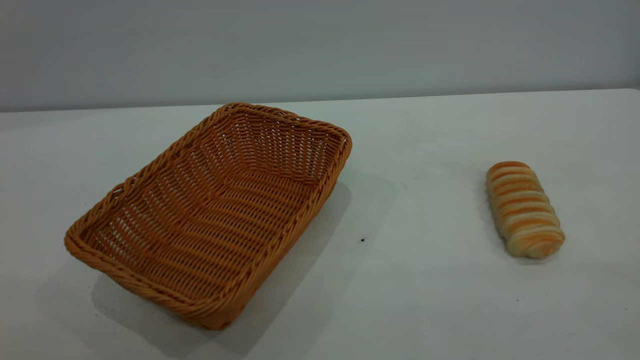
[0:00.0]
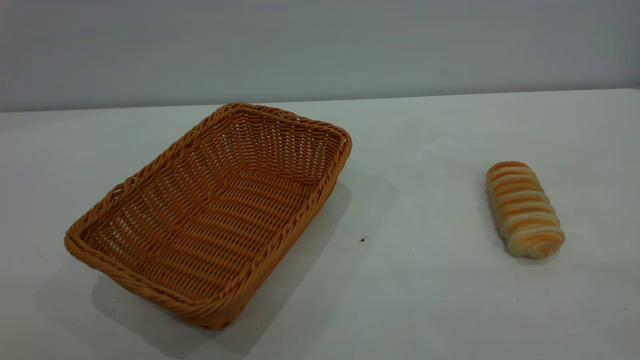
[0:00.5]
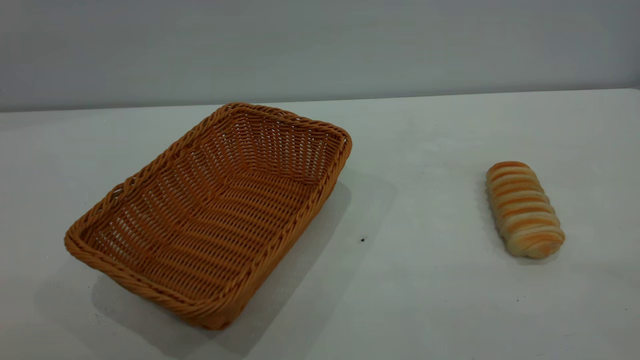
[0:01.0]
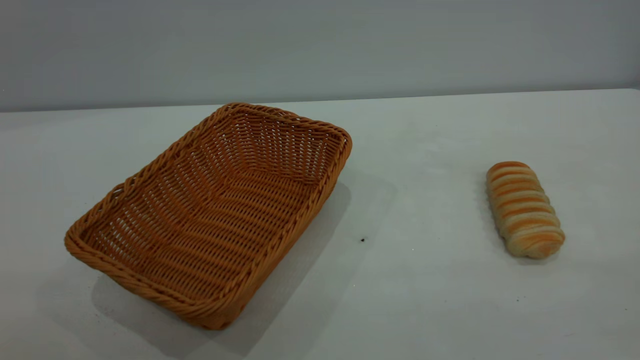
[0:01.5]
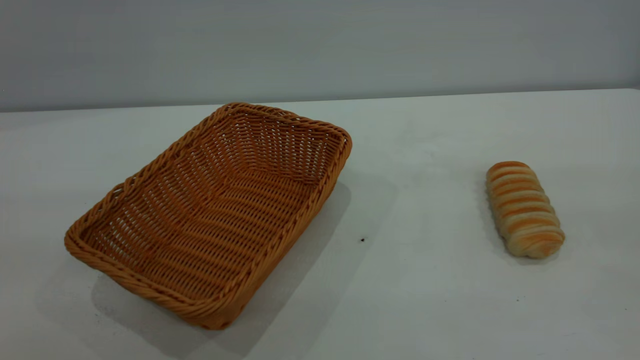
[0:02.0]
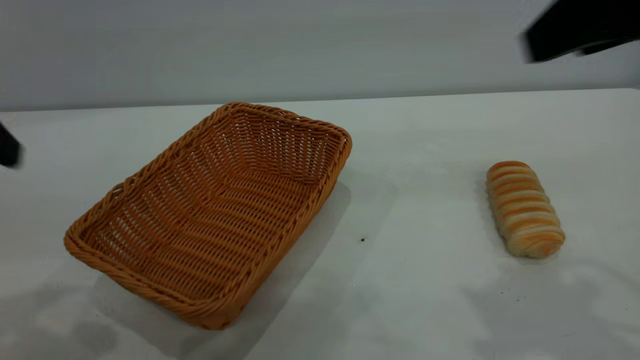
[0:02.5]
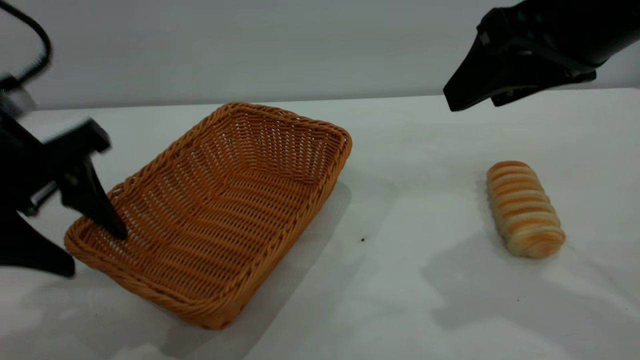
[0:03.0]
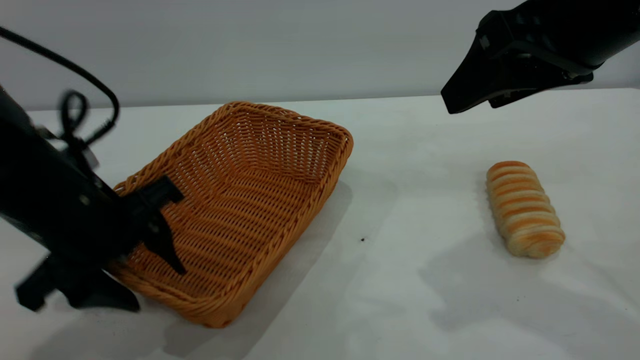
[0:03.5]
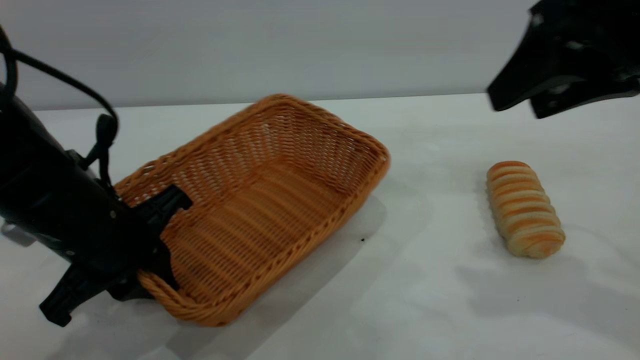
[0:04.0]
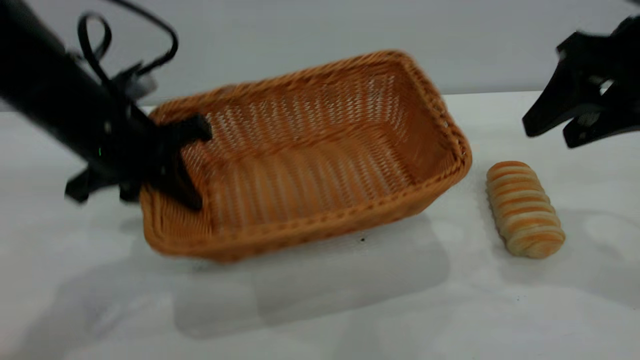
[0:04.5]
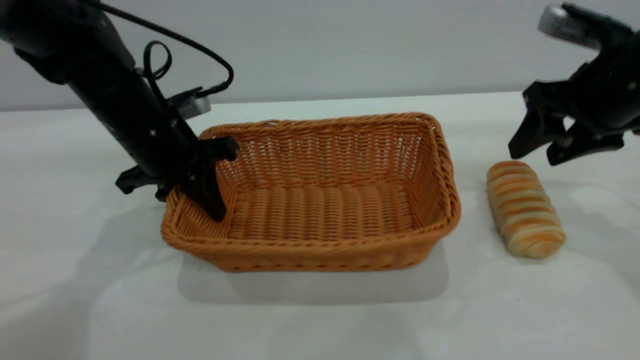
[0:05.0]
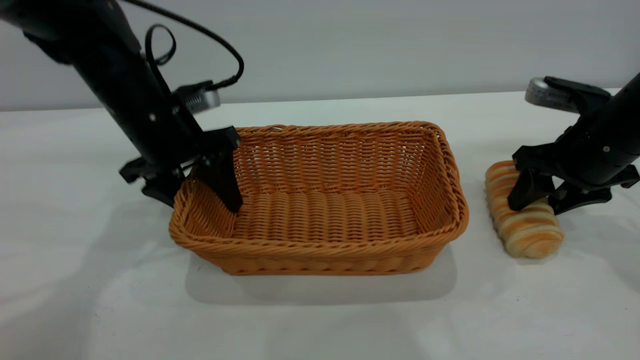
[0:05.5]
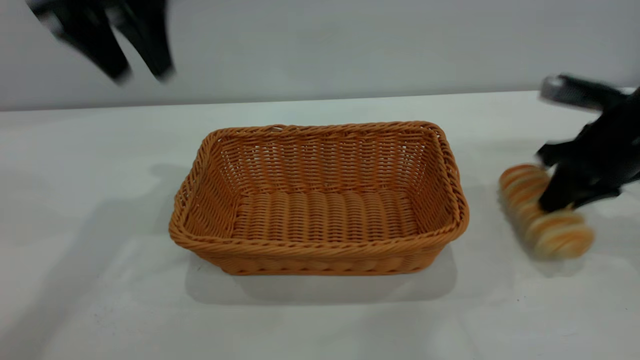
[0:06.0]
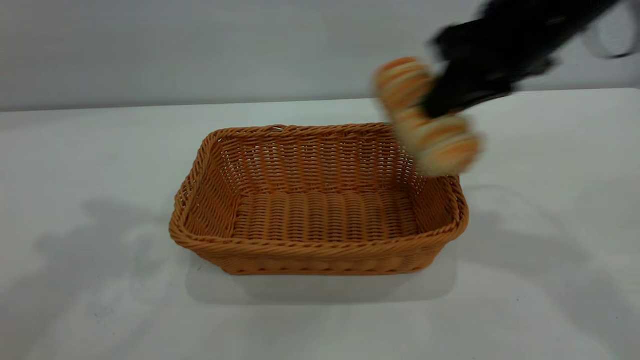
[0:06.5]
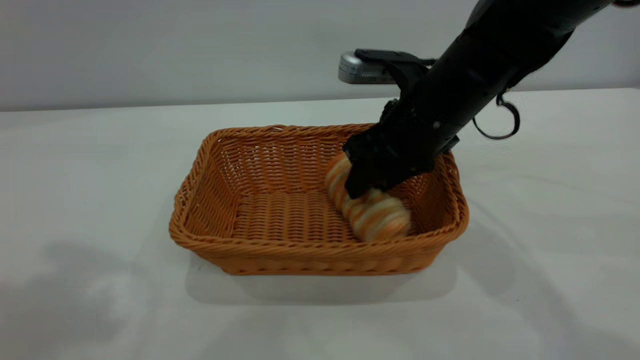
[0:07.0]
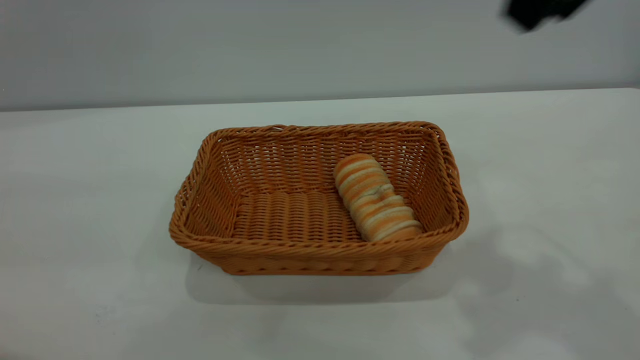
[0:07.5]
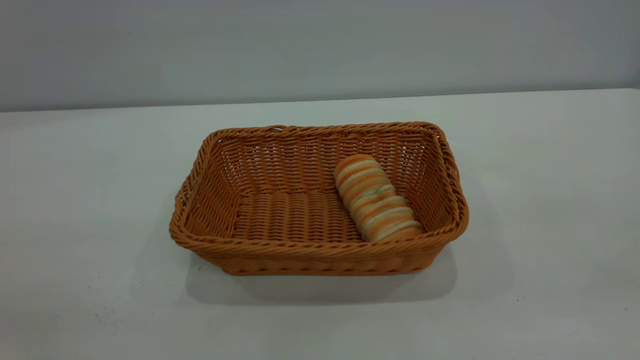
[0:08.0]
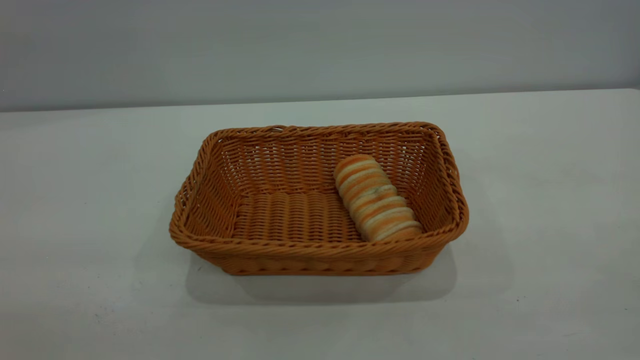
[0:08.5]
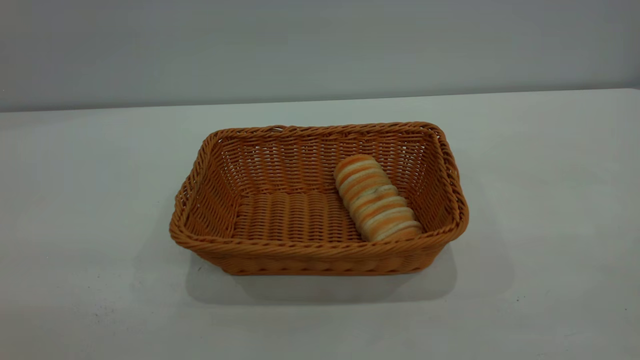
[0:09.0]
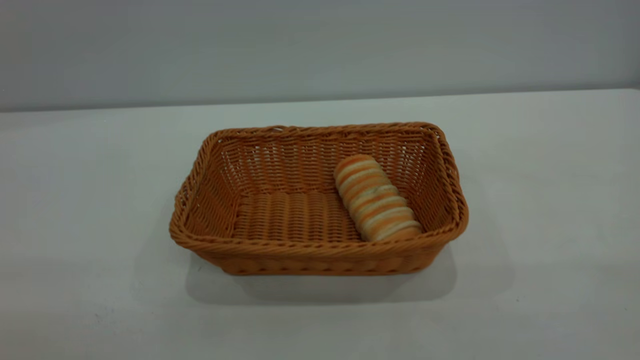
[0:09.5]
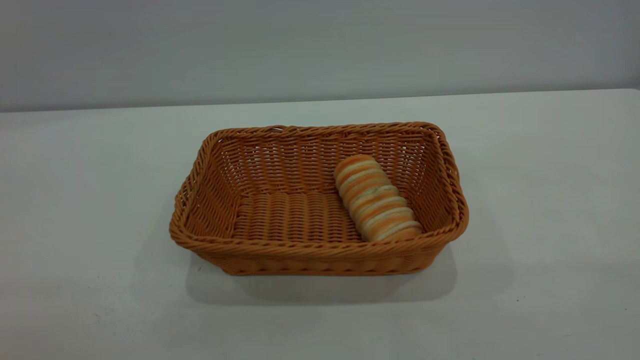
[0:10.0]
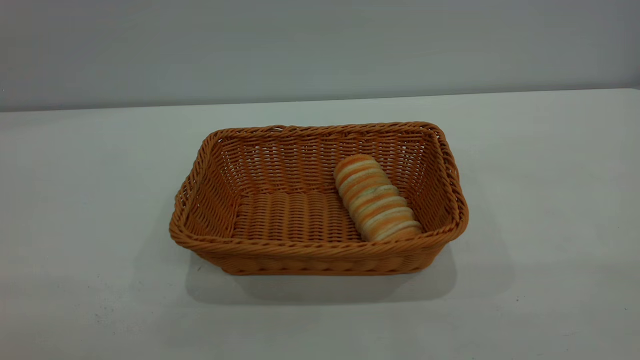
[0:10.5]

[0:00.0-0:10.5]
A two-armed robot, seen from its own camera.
Task of the whole recording: One hand grasps the yellow basket and places it in the middle of the table, while the other hand picks up the long bread and puts it into the yellow basket.
Step, 0:00.0 to 0:05.5: Move the basket to the center of view.
Step, 0:06.5 to 0:07.0: place the bread into the basket.
0:02.0 to 0:04.0: The right gripper heads forward and downward, covering approximately 20 cm. The left gripper goes some 30 cm downward and forward, and closes.
0:04.0 to 0:06.5: The right gripper shifts approximately 10 cm to the left and forward, reaches roughly 15 cm downward, then returns, and closes up, while the left gripper goes up and down, approximately 35 cm each way, reversing 2 times, and opens up.
0:06.5 to 0:08.5: The left gripper travels backward and downward by about 30 cm. Meanwhile the right gripper heads backward, covering roughly 30 cm, and opens its fingers.
